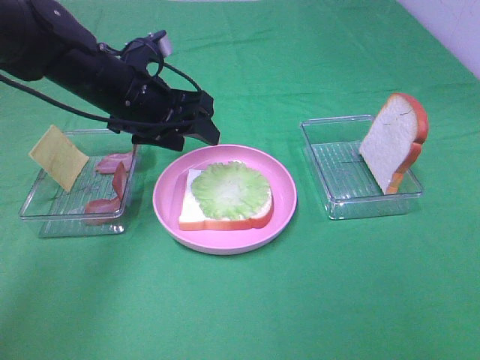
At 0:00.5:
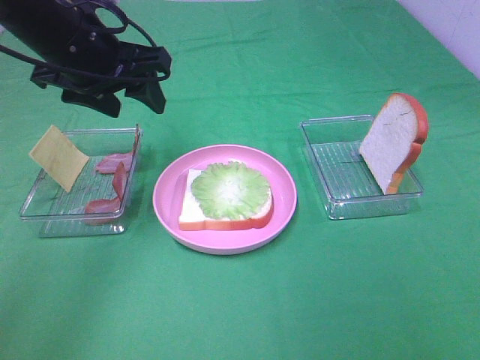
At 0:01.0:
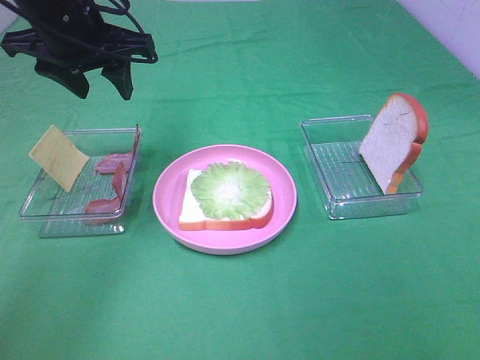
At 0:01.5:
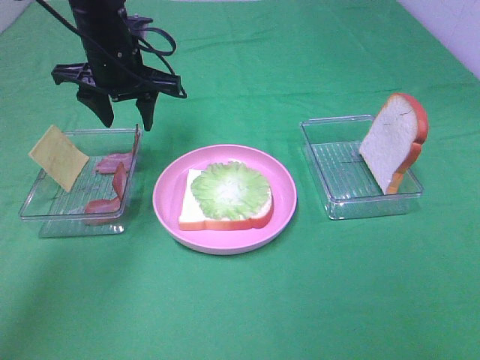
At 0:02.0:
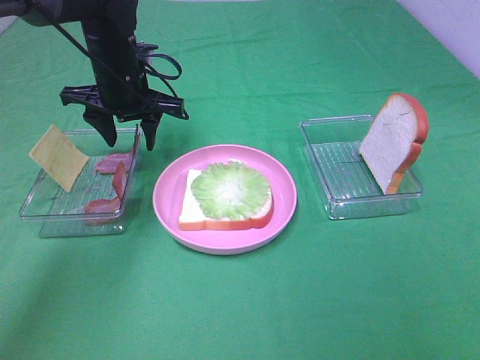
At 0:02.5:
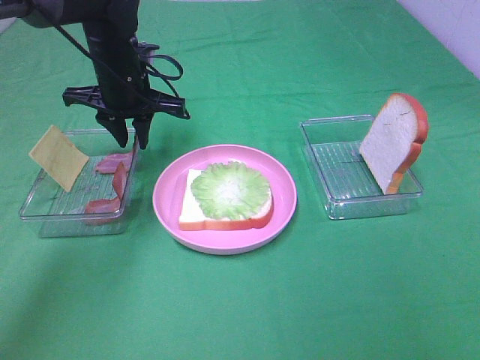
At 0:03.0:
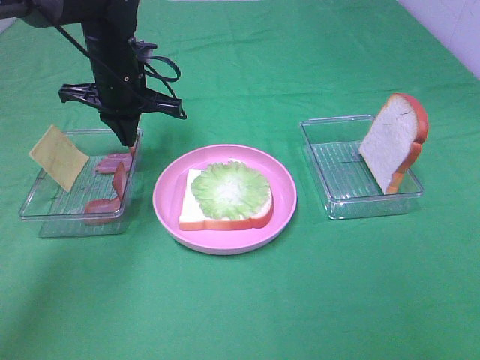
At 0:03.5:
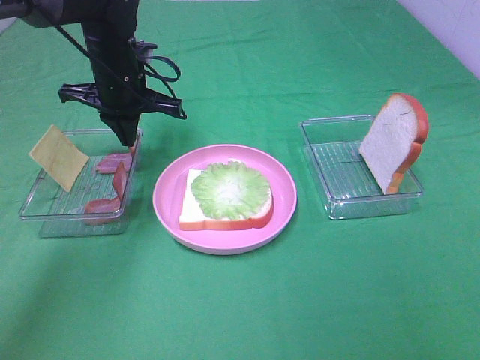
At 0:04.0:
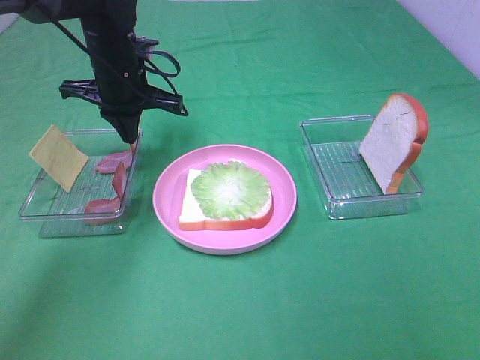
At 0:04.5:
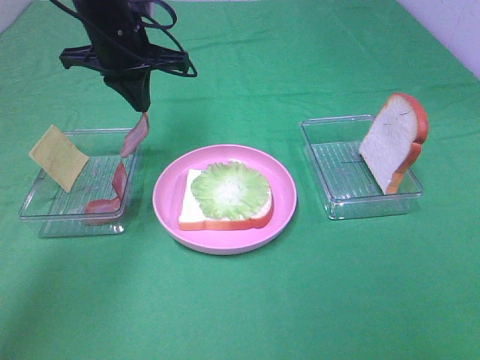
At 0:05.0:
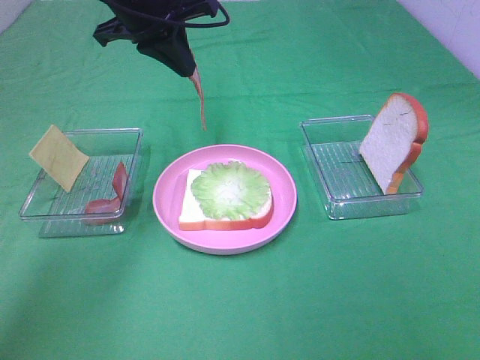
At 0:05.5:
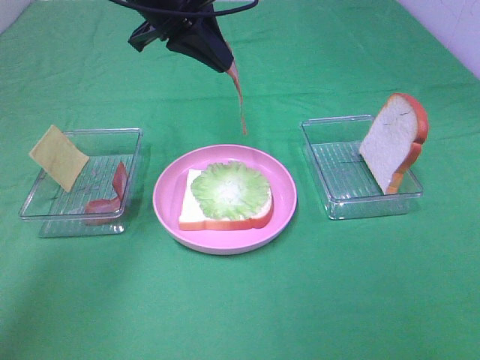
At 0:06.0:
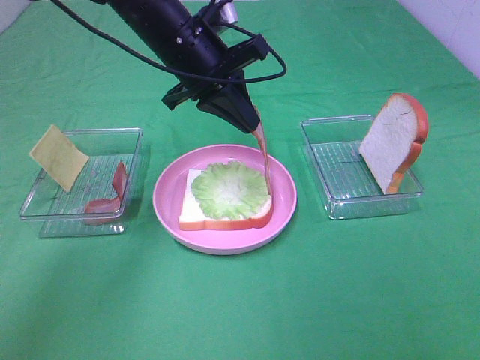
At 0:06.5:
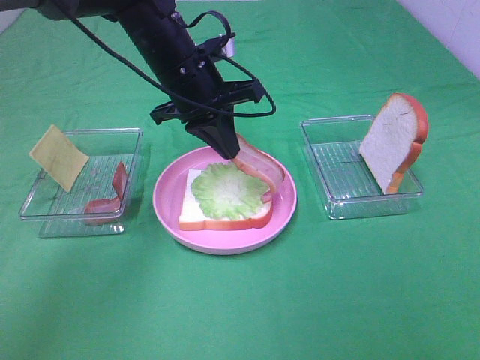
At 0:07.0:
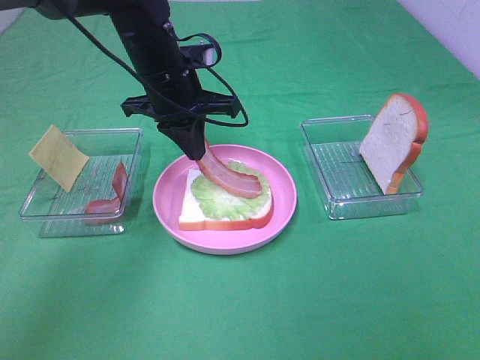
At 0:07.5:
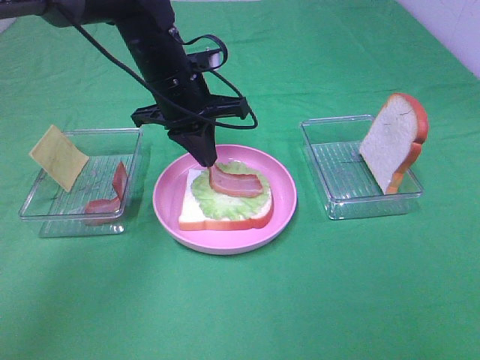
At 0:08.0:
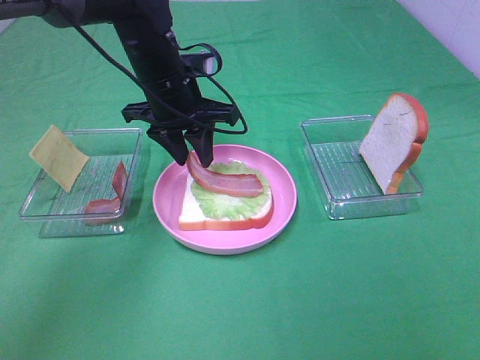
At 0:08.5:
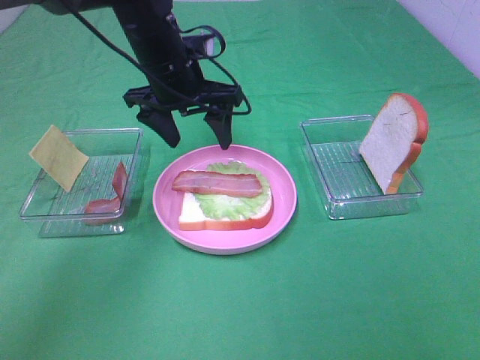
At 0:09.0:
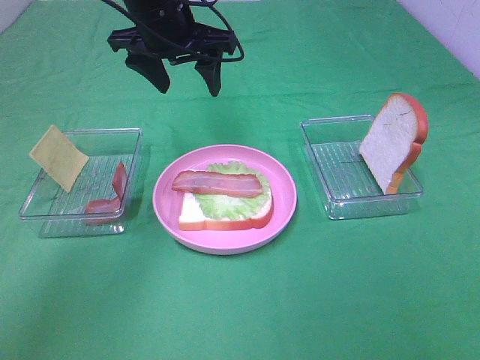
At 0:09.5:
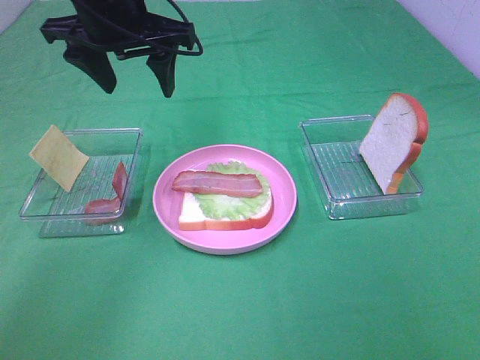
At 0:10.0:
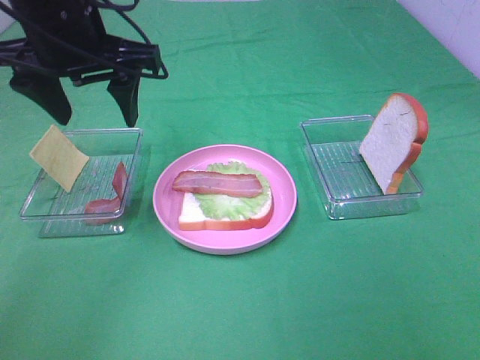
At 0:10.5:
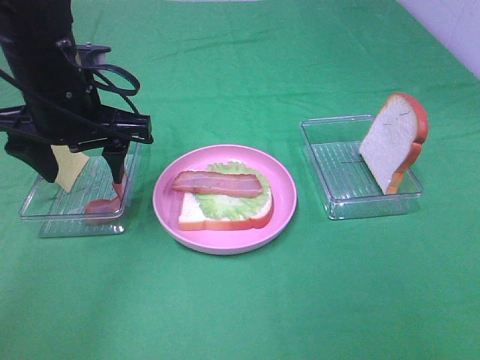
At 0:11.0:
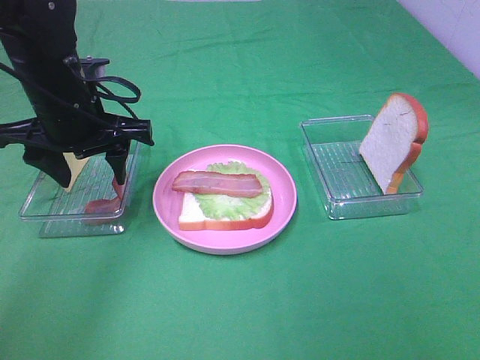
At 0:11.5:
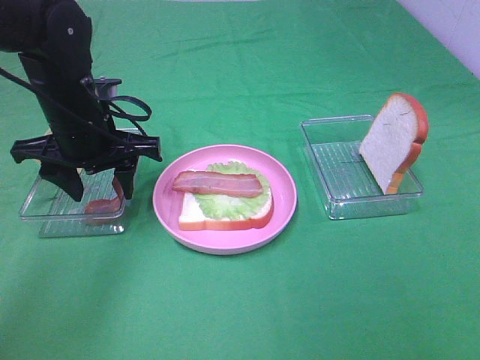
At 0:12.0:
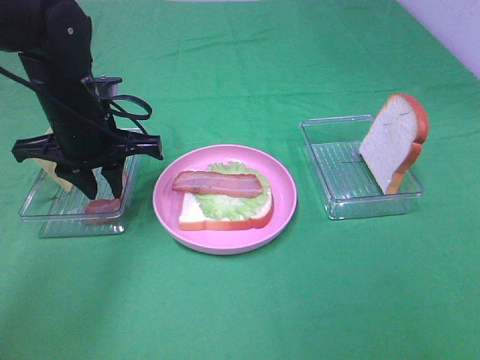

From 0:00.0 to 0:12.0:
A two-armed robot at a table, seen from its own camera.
Task of the whole recording: Make sandwiches.
Step, from 0:00.0 to 0:03.0: Left hand:grab the bacon.
Step, from 0:03.5 to 0:08.0: Left hand:place bacon on lettuce slice.
From 0:00.0 to 0:02.0: The left gripper goes some 10 cm forward, and reaches roughly 10 cm upward, then returns.
From 0:02.0 to 0:04.0: The left gripper closes its fingers.
From 0:04.0 to 0:06.0: The left gripper is displaced to the right by approximately 10 cm.
From 0:06.0 to 0:08.0: The left gripper ends up some 5 cm from where it was, and opens.
From 0:08.0 to 0:10.0: The left gripper shifts roughly 15 cm upward, backward and to the left.
From 0:10.0 to 0:12.0: The left gripper shifts roughly 10 cm downward, and closes up.

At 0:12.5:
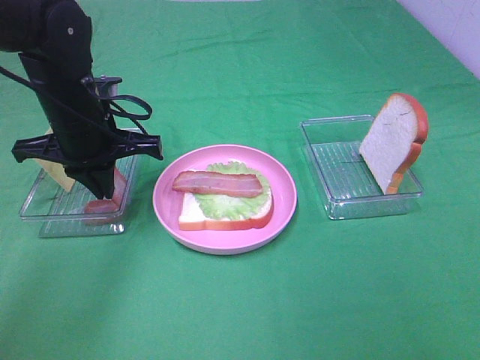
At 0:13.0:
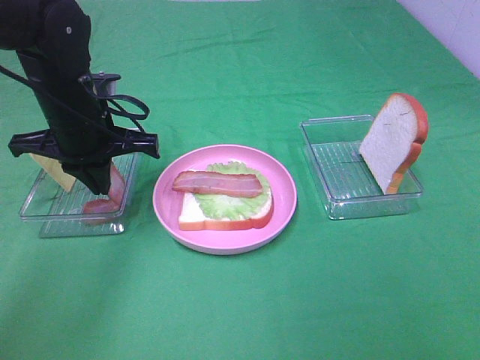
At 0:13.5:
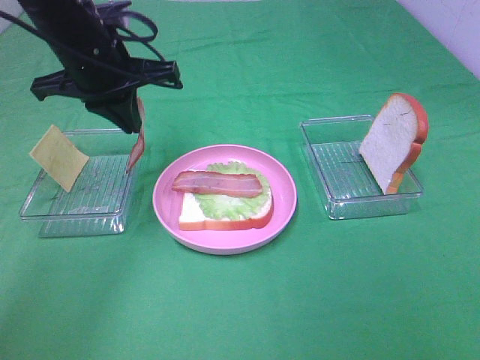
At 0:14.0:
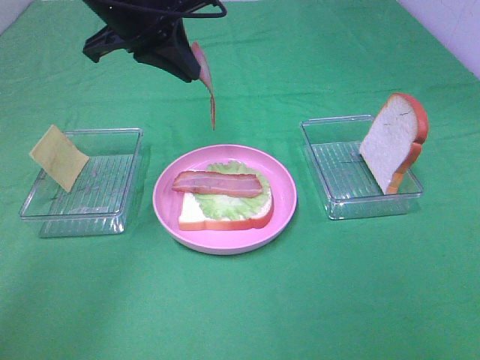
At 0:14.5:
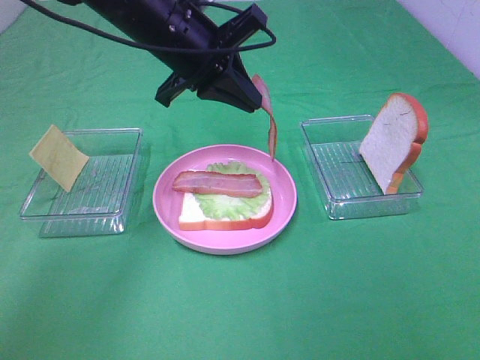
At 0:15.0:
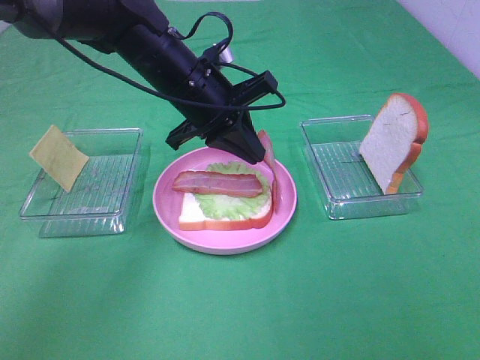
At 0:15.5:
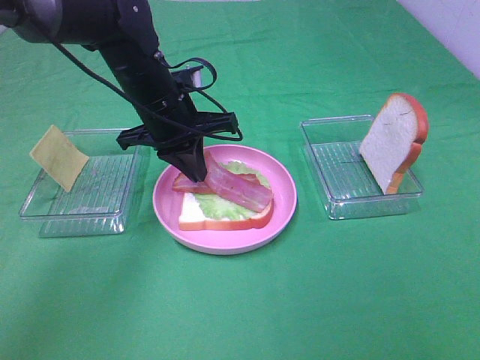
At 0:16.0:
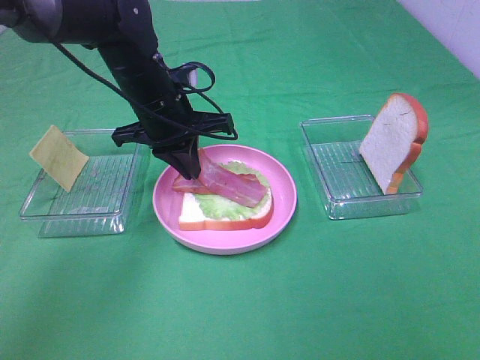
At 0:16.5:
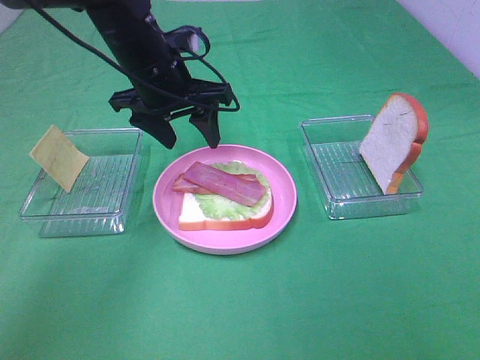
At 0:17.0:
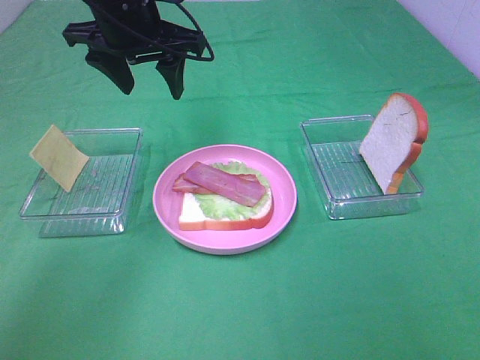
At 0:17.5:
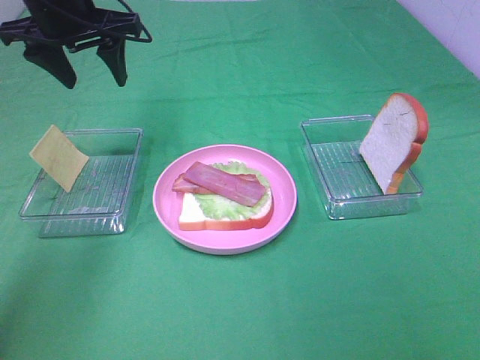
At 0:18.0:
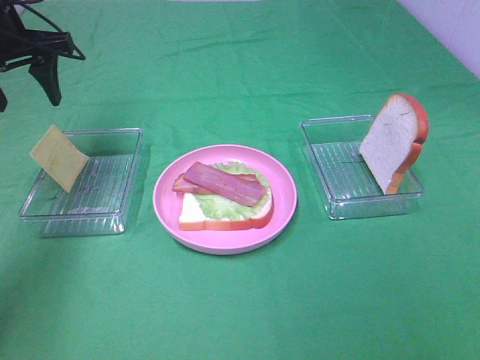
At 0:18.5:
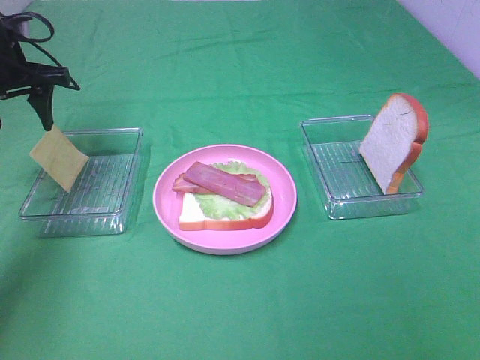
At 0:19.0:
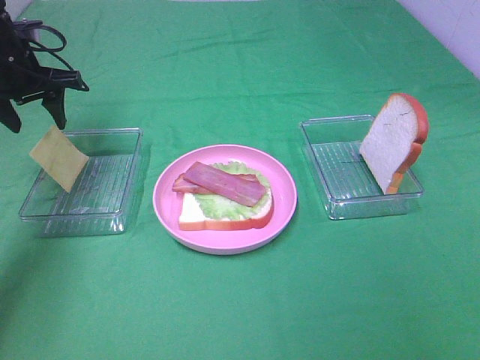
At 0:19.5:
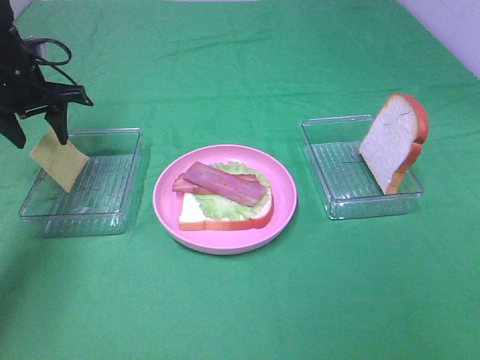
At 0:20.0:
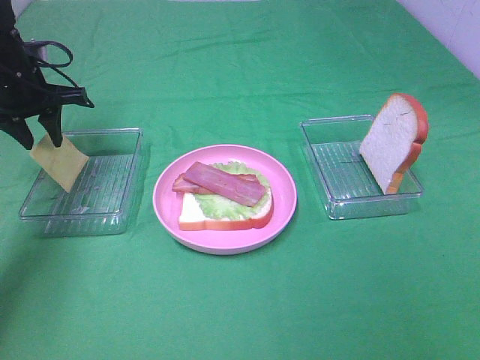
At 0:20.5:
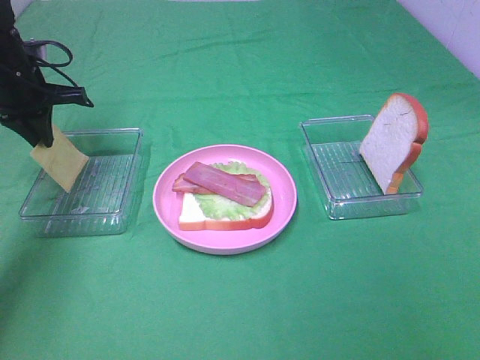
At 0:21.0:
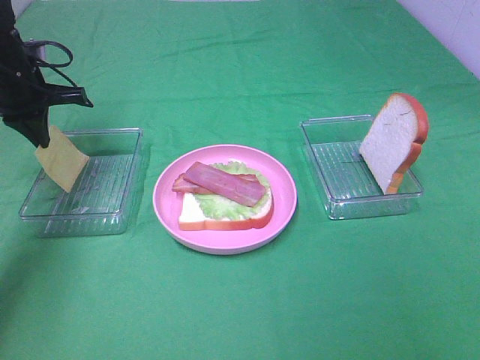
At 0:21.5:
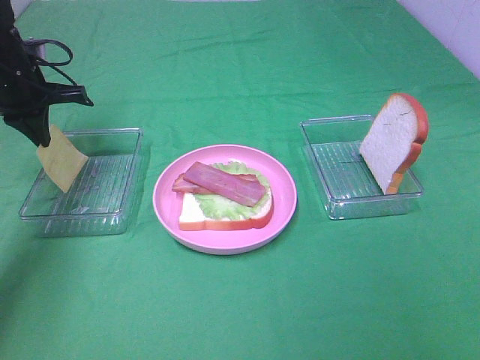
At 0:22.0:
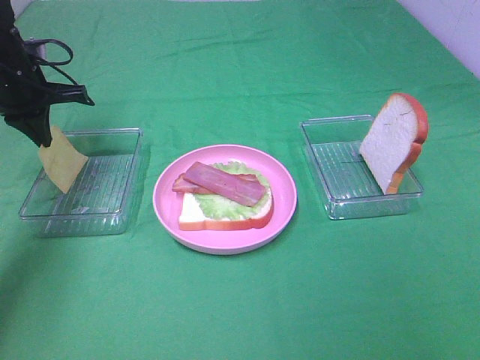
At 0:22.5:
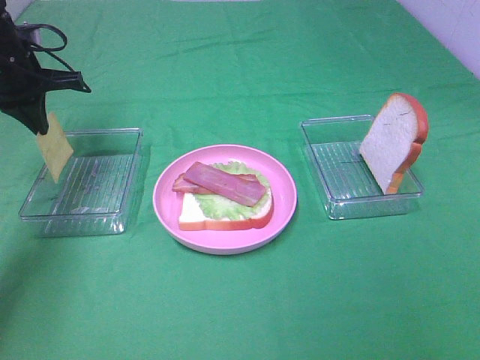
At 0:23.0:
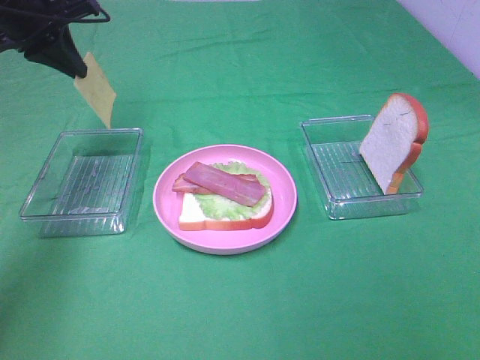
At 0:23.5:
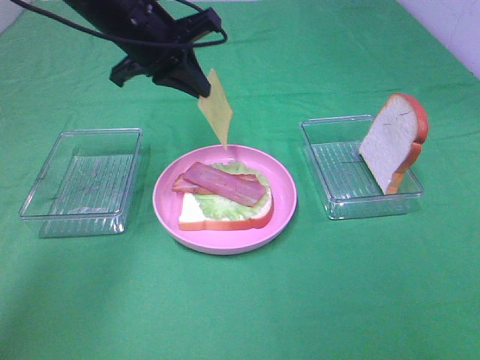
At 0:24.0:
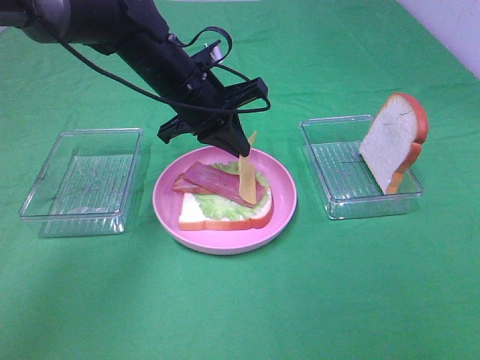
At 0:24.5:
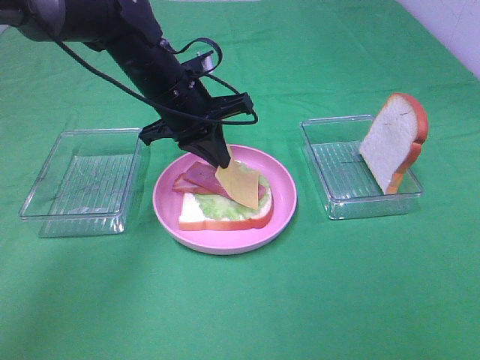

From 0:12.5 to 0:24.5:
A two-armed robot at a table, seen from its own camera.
Task of the whole recording: Make sandwiches.
Step, from 0:13.0 to 0:16.0: Left hand:place bacon on bacon.
Step, from 0:16.5 to 0:21.0: Left hand:grab the cheese slice.
From 0:12.5 to 0:14.5: The left gripper is displaced to the right and upward by about 10 cm.
From 0:14.5 to 0:16.5: The left gripper opens.
From 0:16.5 to 0:18.5: The left gripper moves to the left, roughly 20 cm.
From 0:18.5 to 0:20.5: The left gripper closes up.
From 0:20.5 to 0:22.5: The grippers move only a little.
From 0:22.5 to 0:24.5: The left gripper heads to the right, covering some 20 cm.

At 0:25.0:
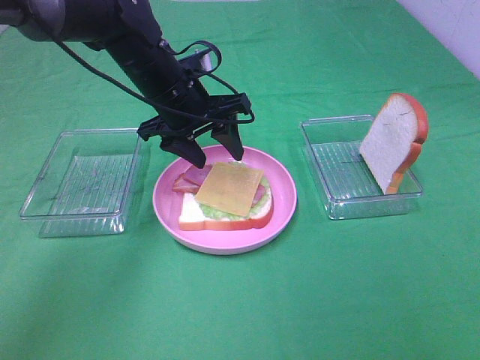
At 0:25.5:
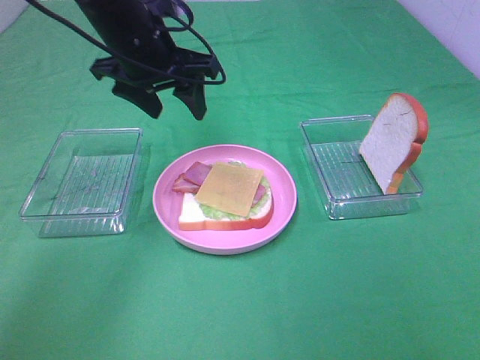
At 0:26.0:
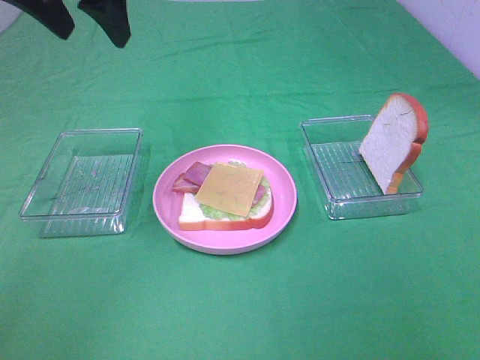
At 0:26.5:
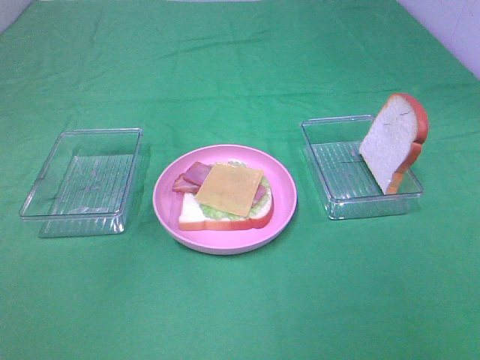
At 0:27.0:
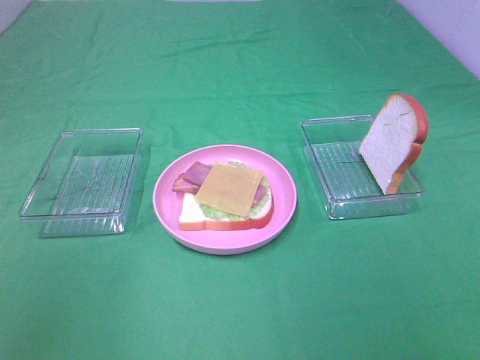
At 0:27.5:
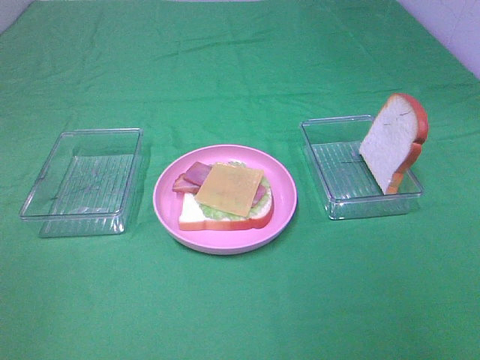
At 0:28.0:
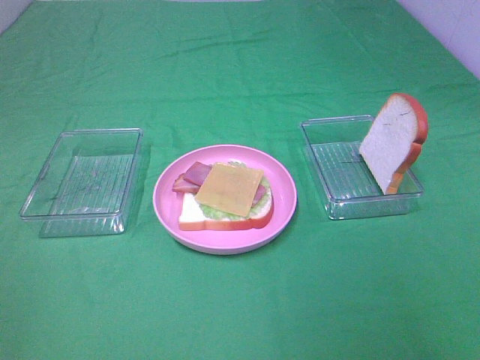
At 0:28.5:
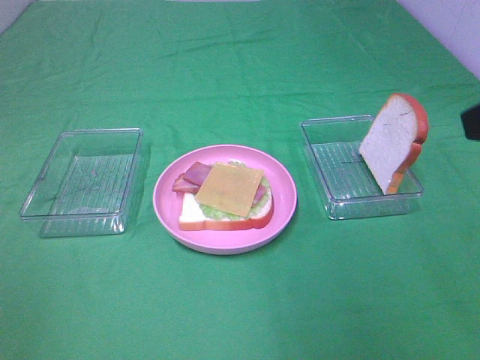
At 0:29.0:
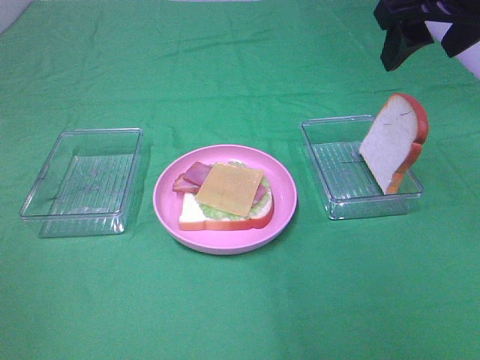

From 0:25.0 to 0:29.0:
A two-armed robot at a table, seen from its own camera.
Task of the whole recording: Make sandwiches.
From 0:25.0 to 0:27.0: The left gripper is displaced backward, upward and to the left by about 40 cm.
From 0:27.0 to 0:29.0: The right gripper moves forward, roughly 30 cm.
